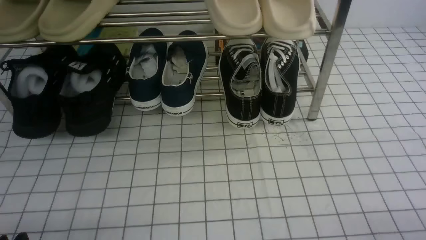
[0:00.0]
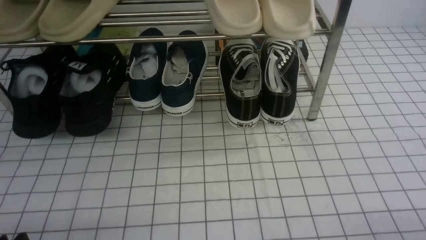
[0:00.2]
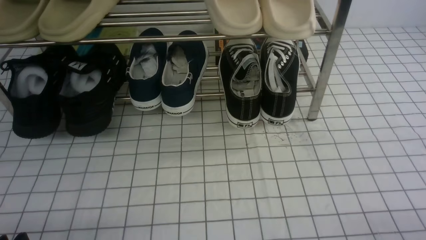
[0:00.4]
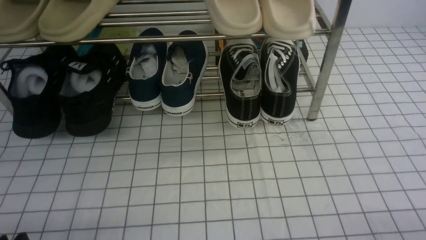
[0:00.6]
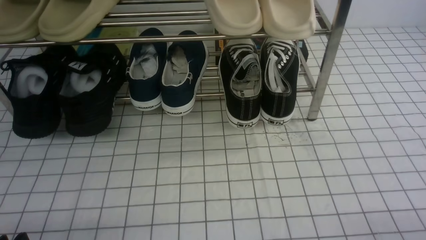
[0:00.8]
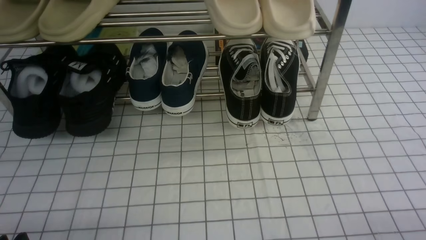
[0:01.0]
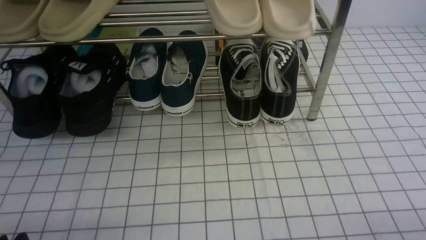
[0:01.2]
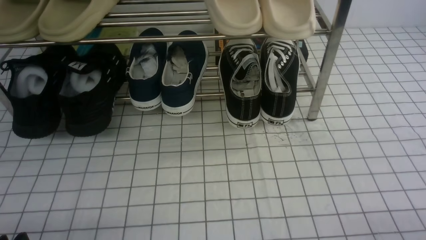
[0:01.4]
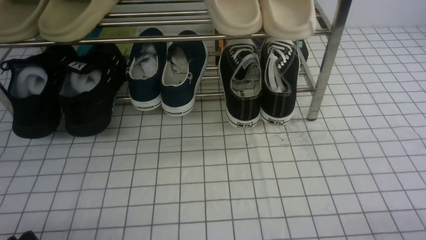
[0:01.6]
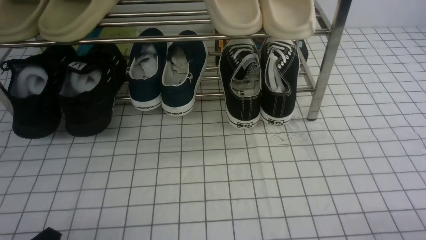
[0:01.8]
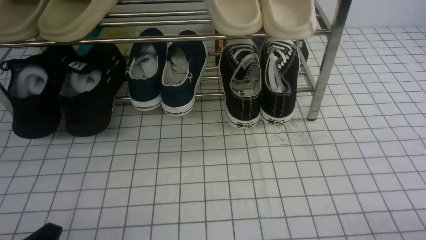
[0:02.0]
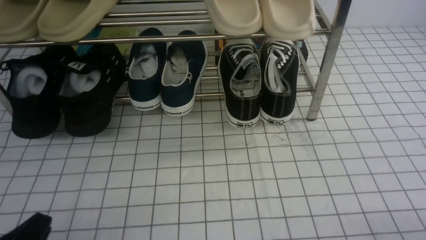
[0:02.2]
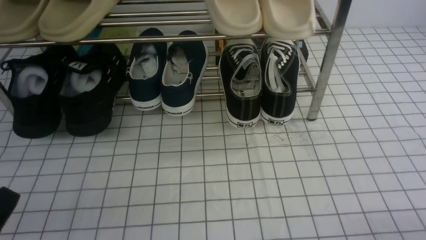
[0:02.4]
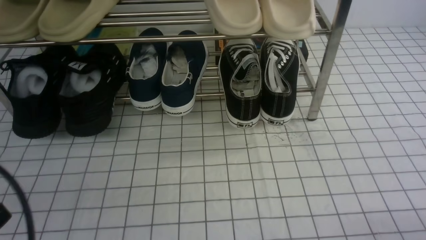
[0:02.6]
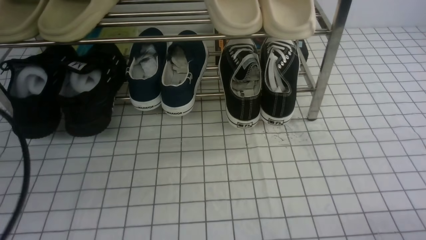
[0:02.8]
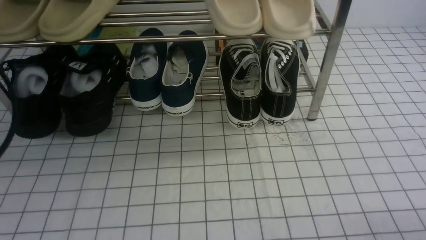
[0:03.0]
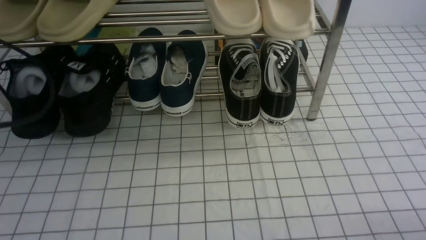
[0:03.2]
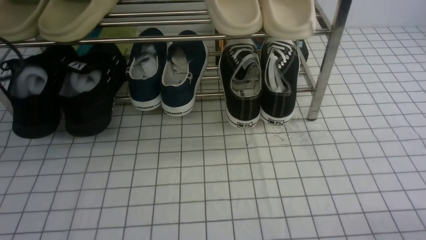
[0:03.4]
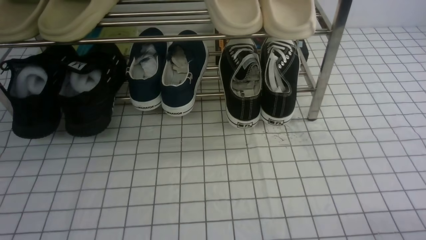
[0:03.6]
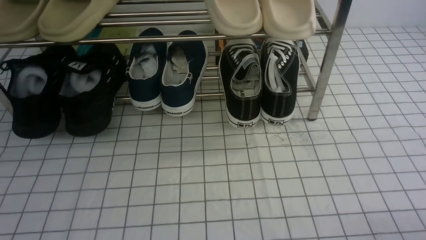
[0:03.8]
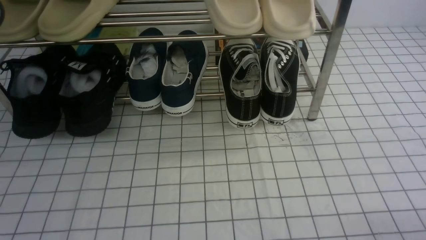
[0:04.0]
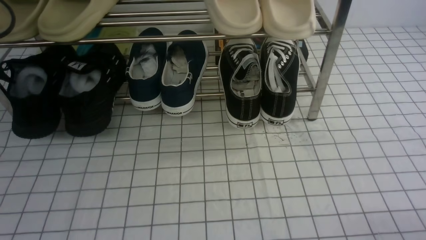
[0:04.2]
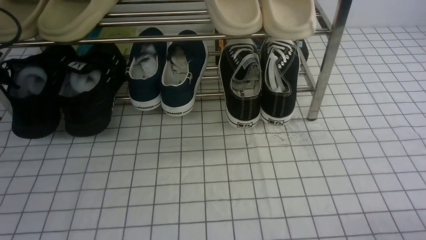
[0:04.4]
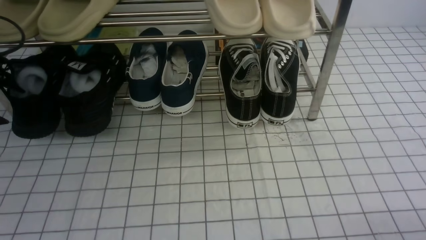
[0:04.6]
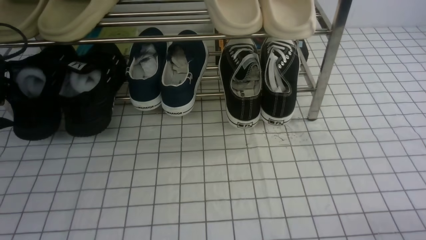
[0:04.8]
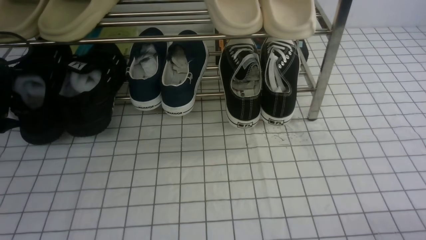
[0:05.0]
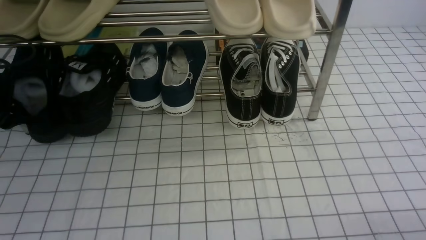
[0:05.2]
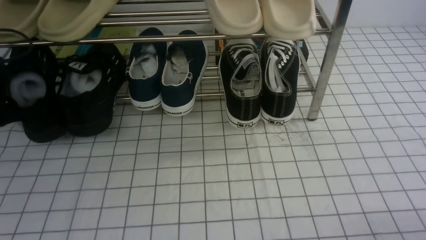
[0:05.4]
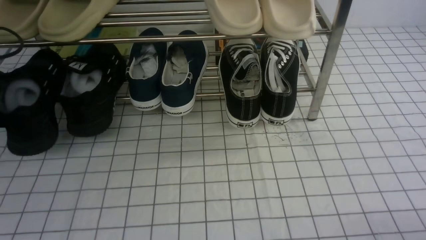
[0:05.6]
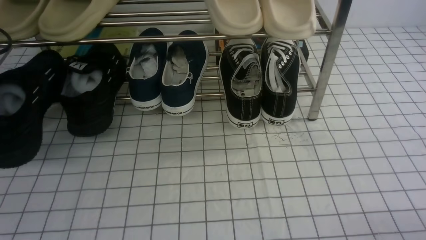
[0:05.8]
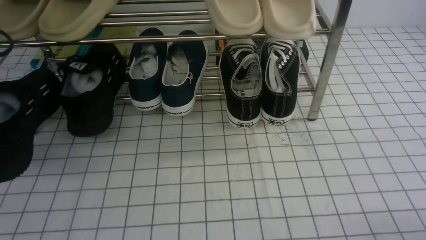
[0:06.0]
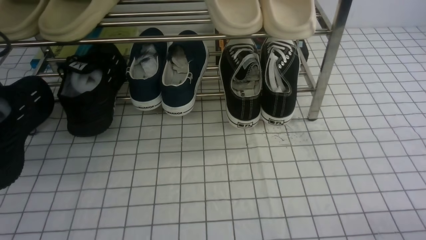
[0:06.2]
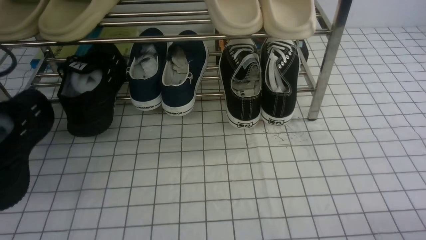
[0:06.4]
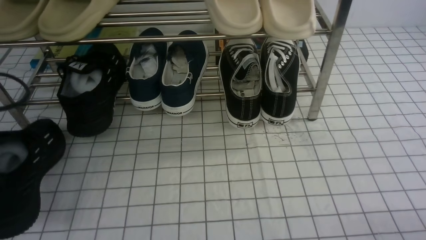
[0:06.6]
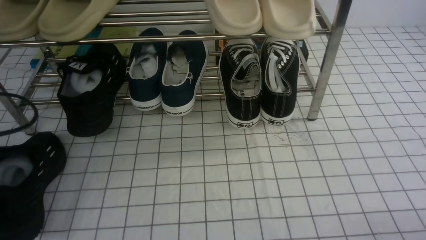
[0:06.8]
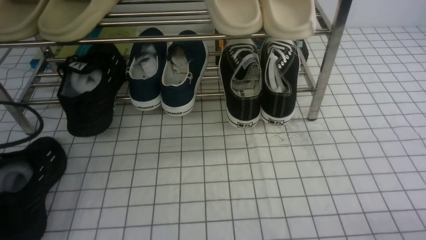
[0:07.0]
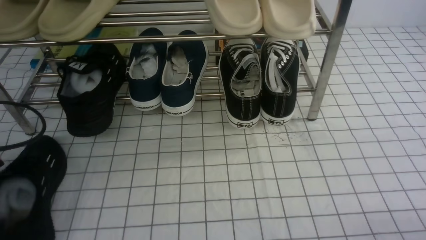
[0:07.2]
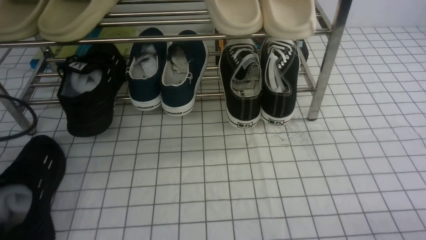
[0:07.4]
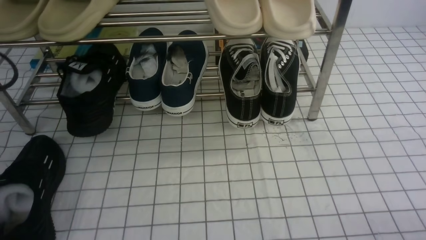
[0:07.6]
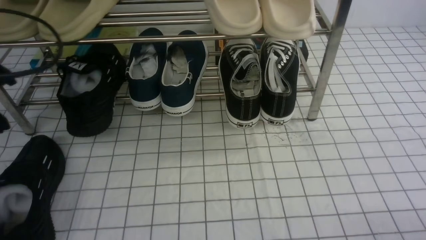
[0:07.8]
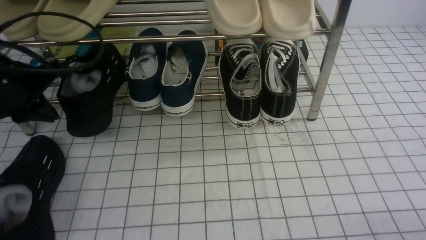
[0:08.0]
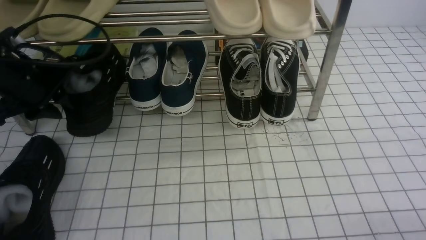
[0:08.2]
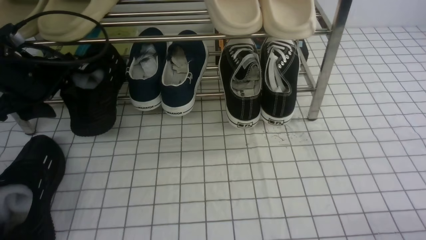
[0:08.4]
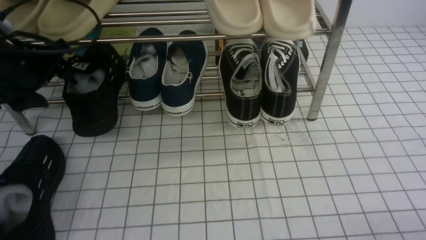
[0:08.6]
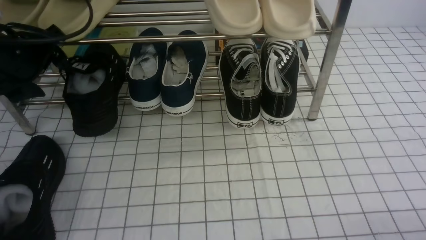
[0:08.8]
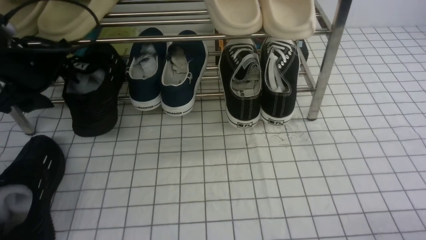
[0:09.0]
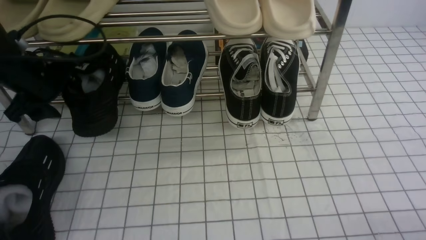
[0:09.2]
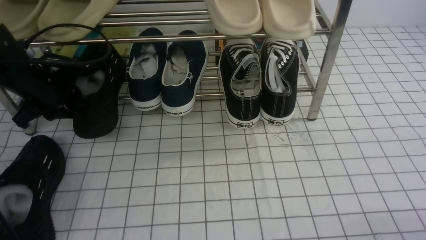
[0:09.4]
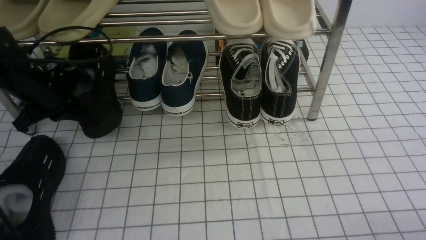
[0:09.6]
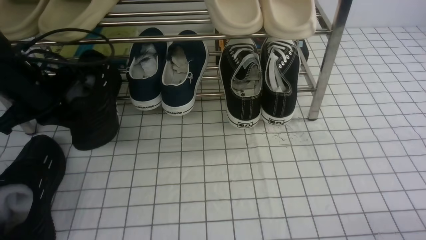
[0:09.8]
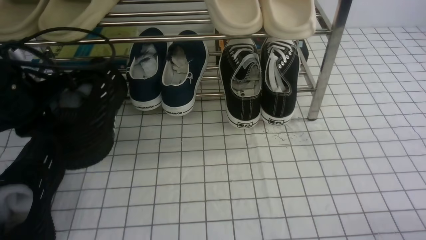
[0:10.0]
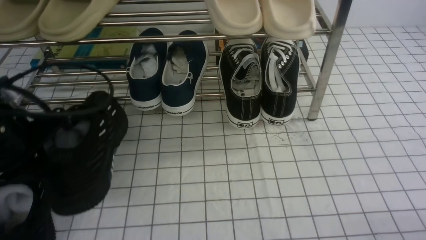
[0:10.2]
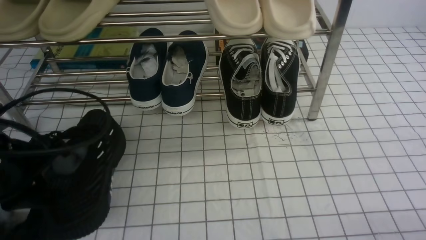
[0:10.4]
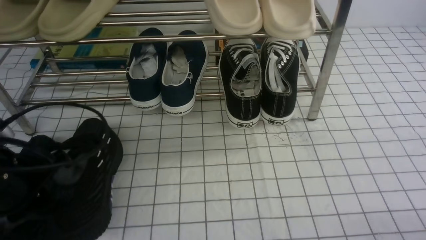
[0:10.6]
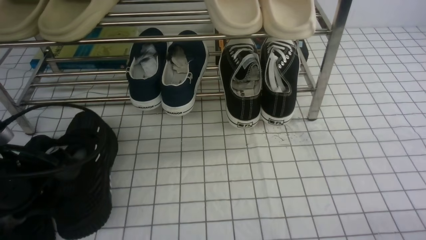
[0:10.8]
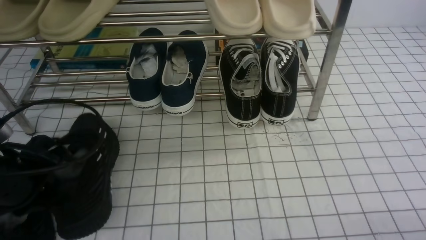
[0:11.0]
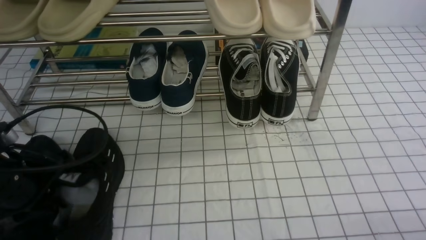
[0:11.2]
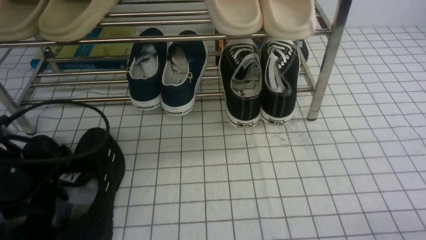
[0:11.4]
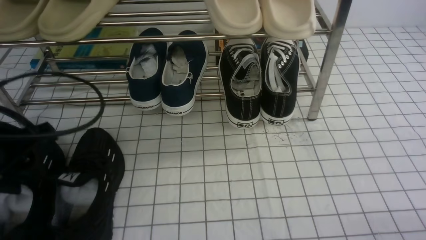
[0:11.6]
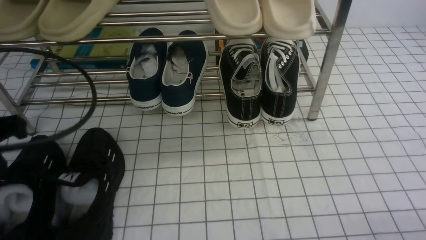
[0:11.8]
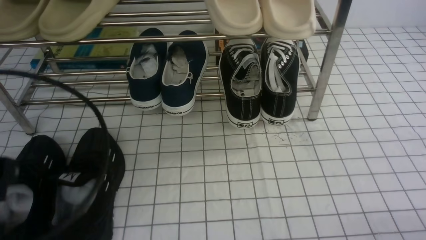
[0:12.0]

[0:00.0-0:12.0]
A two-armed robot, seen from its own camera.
Step, 0:00.0 to 0:05.0: use the left arm to clamp a shoe on the left side of the shoe rack.
Step, 0:05.2 to 0:07.6: Use your left arm to remove the clamped shoe from the shoe rack and put it down.
Step, 0:07.8 to 0:09.4: use the left arm to clamp a shoe on the left side of the shoe rack.
Step, 0:09.6 to 0:11.6: Use your left arm to remove the clamped shoe from the shoe rack and put it down.
0:01.6 to 0:03.0: The left gripper moves upward and forward, about 20 cm, and closes its fingers.
0:03.0 to 0:04.4: The left gripper shifts some 20 cm forward, downward and to the left, and opens its fingers.
0:04.4 to 0:06.0: The left gripper is displaced backward by some 5 cm, and closes.
0:06.0 to 0:07.6: The left gripper moves approximately 5 cm downward and comes back, and opens.
0:07.6 to 0:09.0: The left gripper moves forward and to the right, approximately 15 cm, and opens.
0:09.0 to 0:10.4: The left gripper travels backward by roughly 15 cm, and closes its fingers.
0:10.4 to 0:12.0: The left gripper is displaced backward and upward by about 10 cm, and opens and closes again.

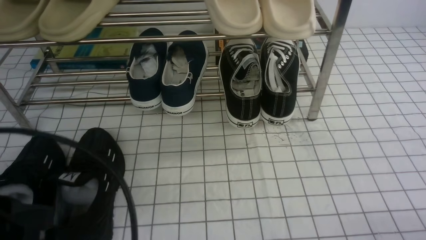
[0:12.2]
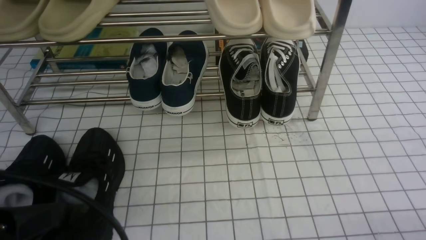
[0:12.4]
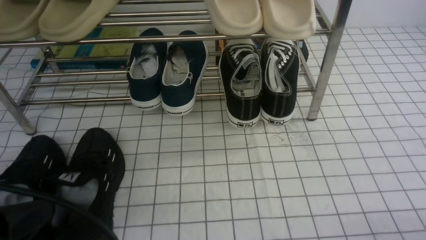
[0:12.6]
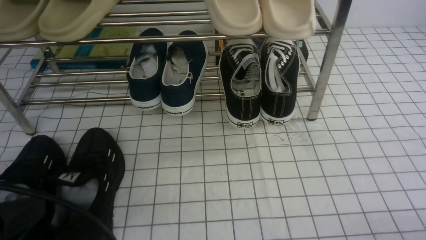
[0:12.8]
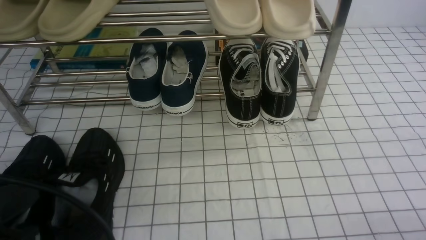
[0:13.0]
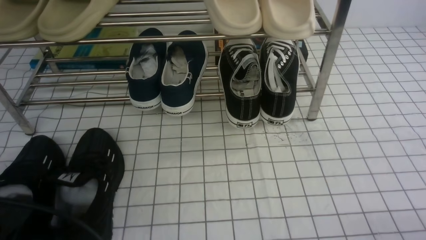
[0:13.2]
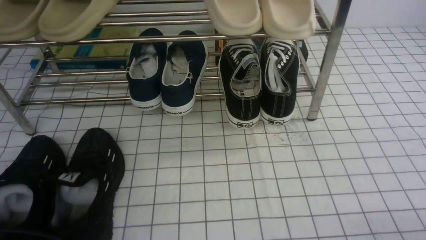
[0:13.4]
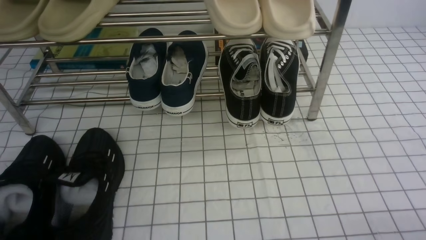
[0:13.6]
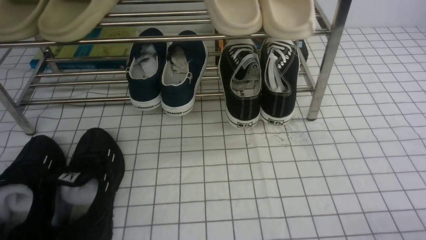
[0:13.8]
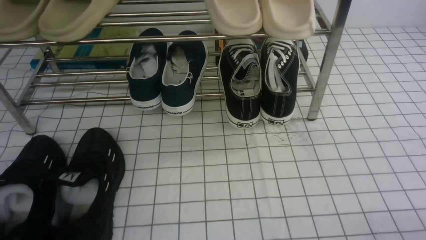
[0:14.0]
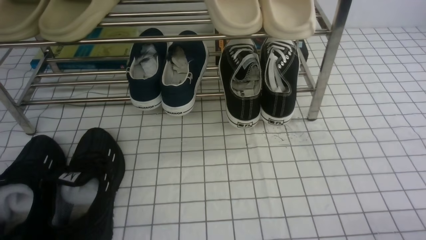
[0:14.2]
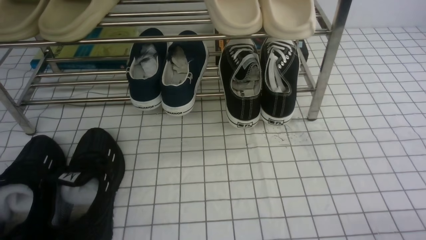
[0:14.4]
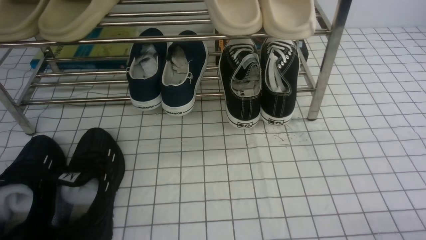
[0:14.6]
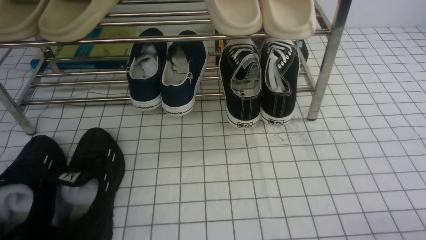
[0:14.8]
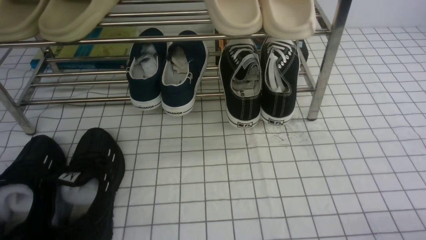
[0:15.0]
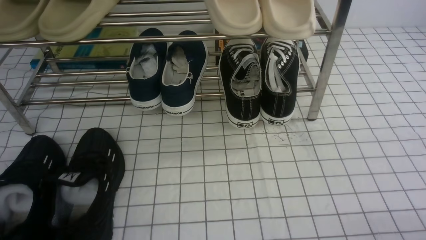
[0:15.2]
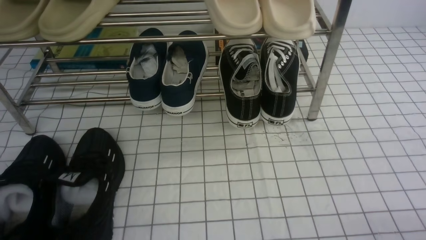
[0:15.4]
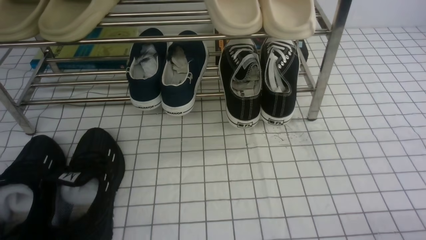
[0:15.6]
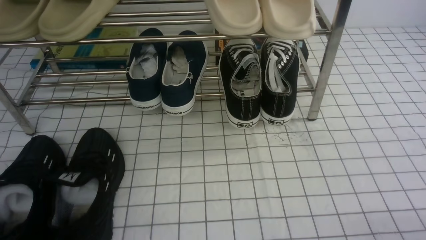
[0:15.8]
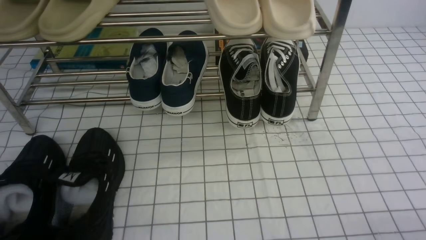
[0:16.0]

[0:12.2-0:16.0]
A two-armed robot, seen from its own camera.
0:12.2 to 0:13.4: The left gripper goes roughly 10 cm downward.
0:14.8 to 0:16.0: Both grippers stay about where they are.
